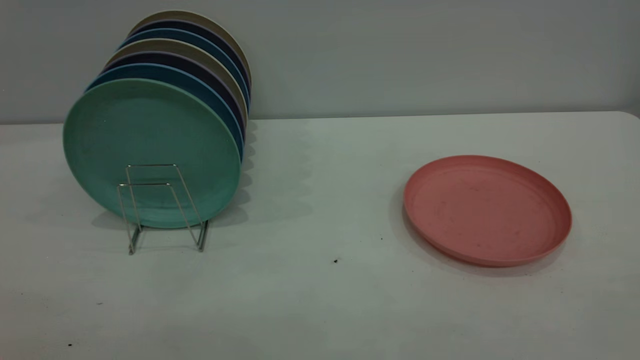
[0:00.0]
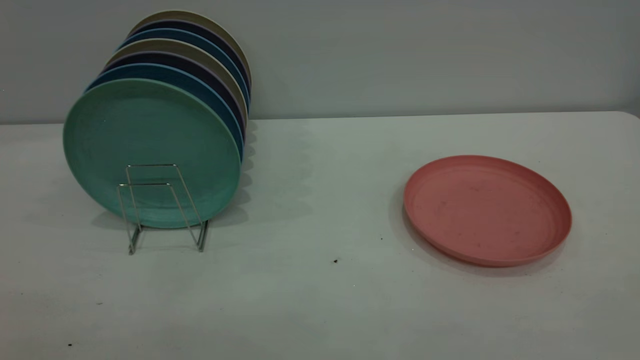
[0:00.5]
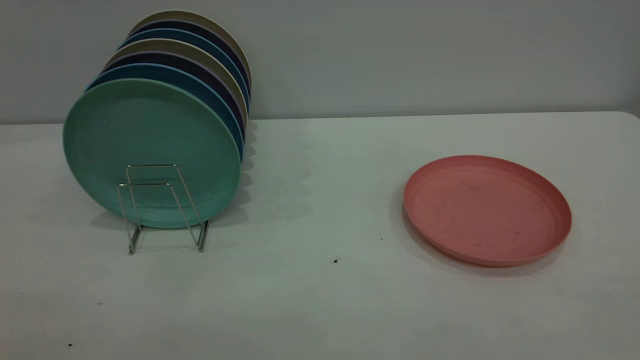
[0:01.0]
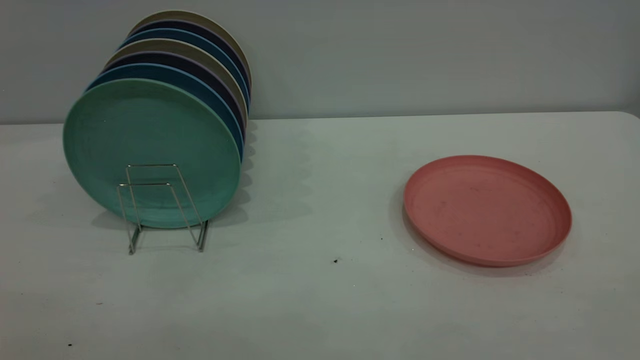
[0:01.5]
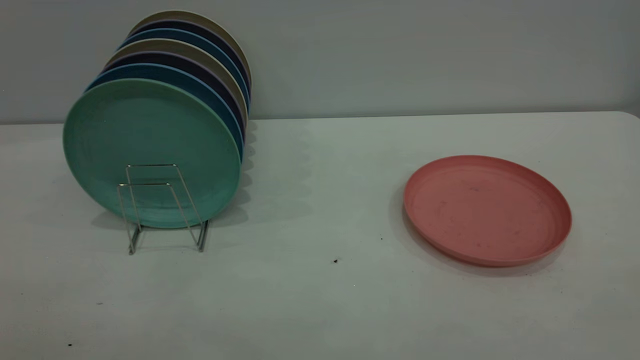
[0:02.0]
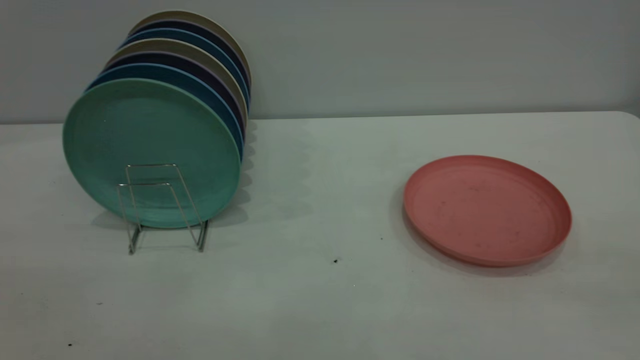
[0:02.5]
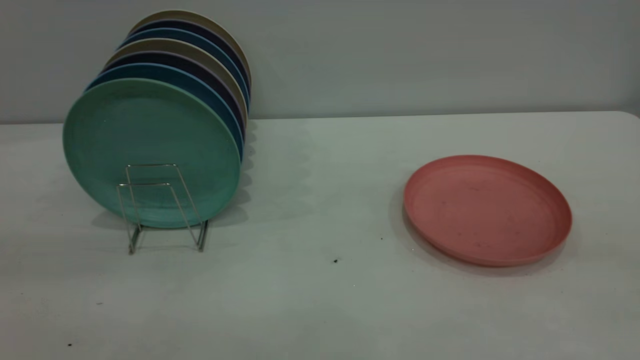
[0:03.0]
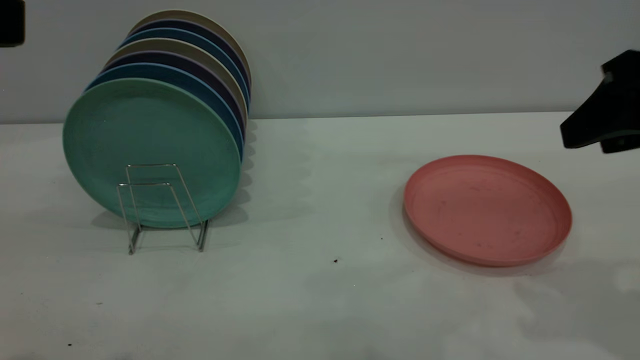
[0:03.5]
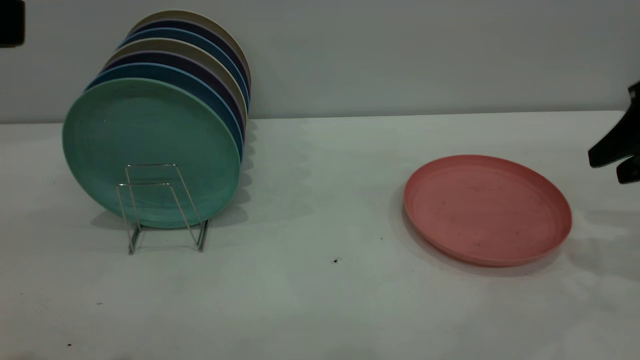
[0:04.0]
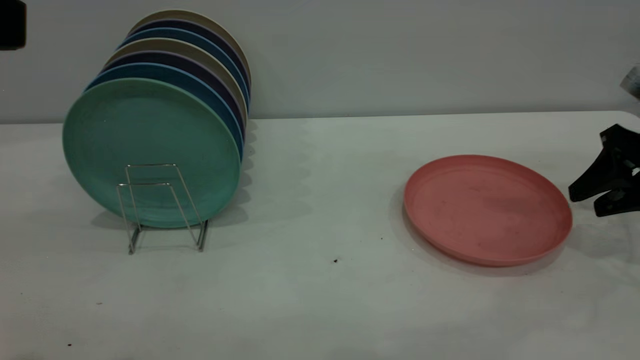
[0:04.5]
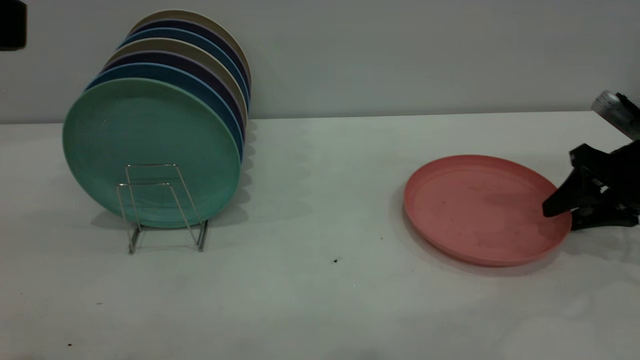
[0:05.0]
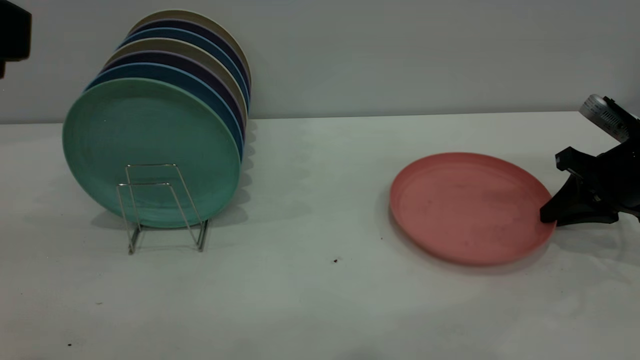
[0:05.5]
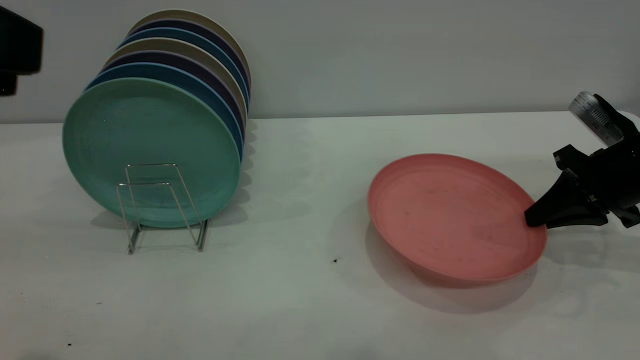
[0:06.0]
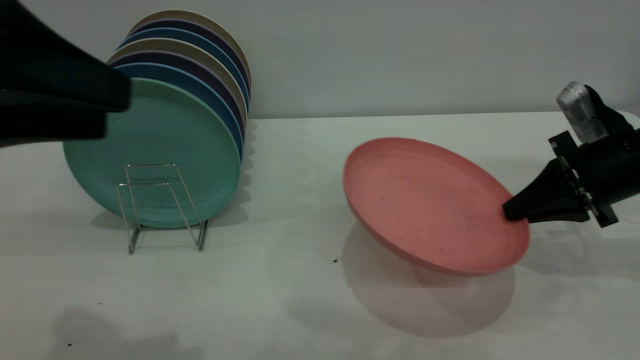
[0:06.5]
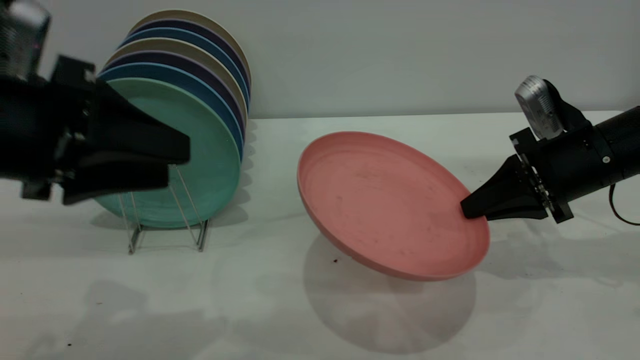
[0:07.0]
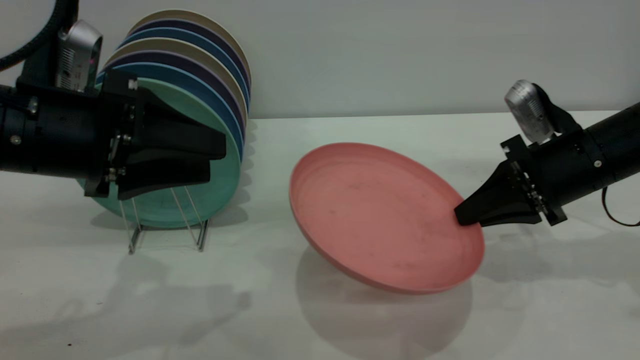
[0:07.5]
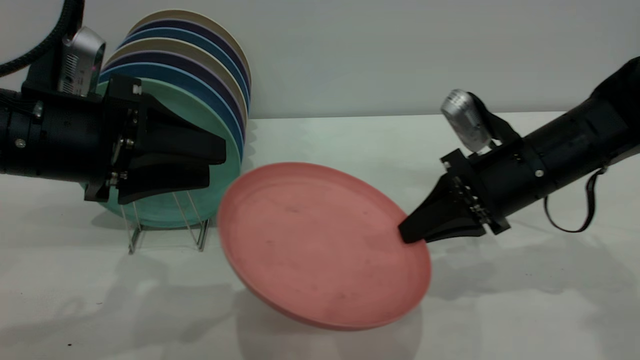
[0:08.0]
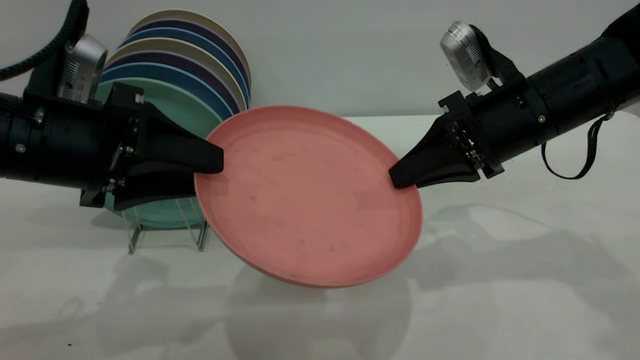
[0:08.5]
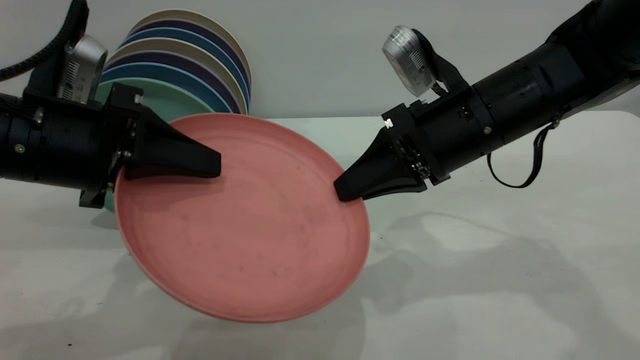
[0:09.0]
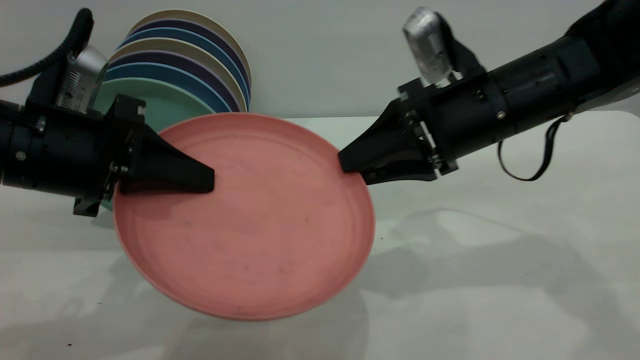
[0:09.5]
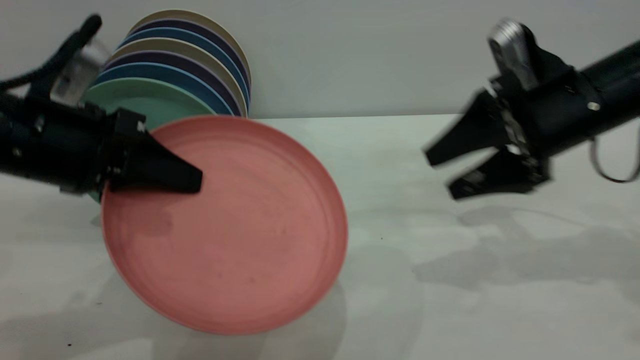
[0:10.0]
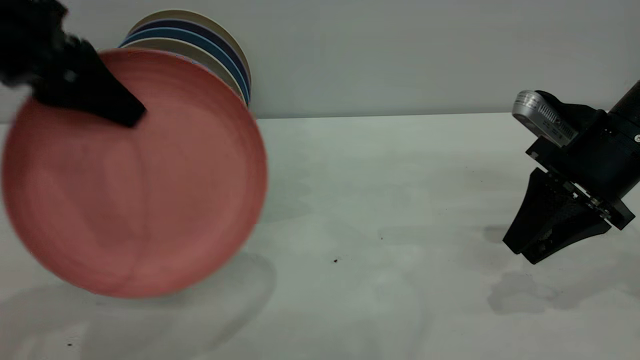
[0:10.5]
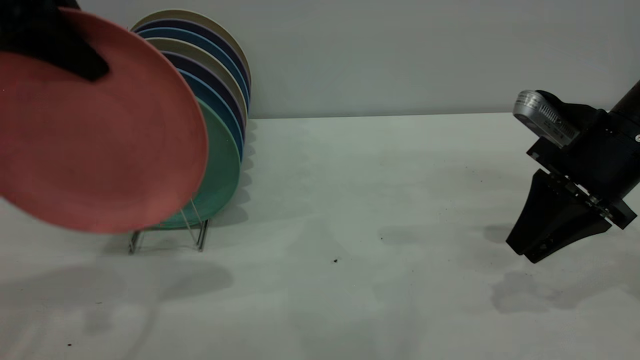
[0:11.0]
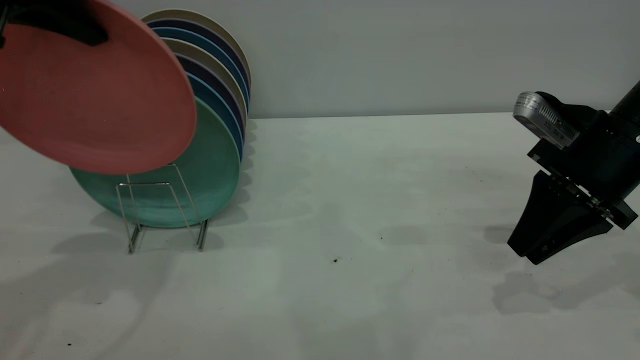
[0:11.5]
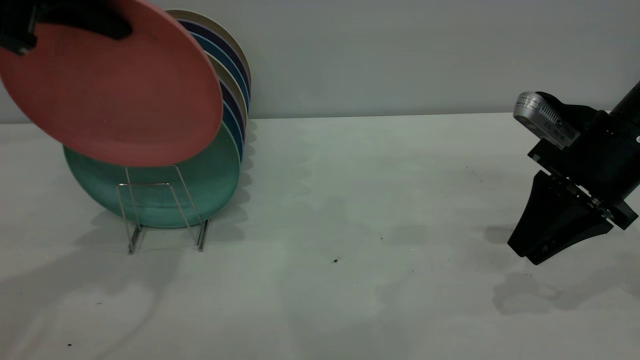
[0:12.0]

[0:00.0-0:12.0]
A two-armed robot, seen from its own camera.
Task of the whole recording: the right gripper grasp the pink plate, the right gripper pass the pink plate to the left gripper, and the left gripper place the pink plate on the plate rack.
Step, 0:00.0 to 0:06.0: Pick up the plate with the right gripper.
Step, 0:06.5 to 0:09.5: Pass the plate from the right gripper to the left gripper.
0:02.0 to 0:04.0: The right gripper goes roughly 40 cm forward and downward, and opens.
0:04.0 to 0:06.0: The right gripper heads downward, covering approximately 10 cm, and closes up.
0:06.0 to 0:08.0: The right gripper moves to the left, roughly 15 cm. Meanwhile the left gripper goes about 20 cm downward and forward.
0:08.0 to 0:10.0: The right gripper travels upward by about 5 cm, and opens up; the left gripper closes up.
0:10.0 to 0:12.0: The left gripper shifts some 15 cm upward and forward, while the right gripper closes.

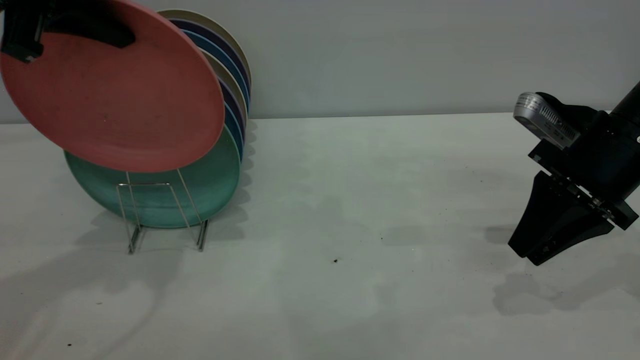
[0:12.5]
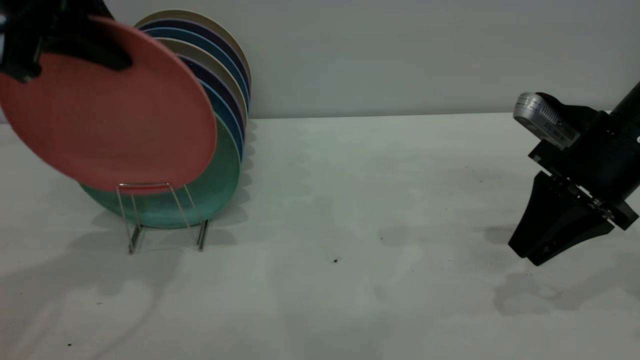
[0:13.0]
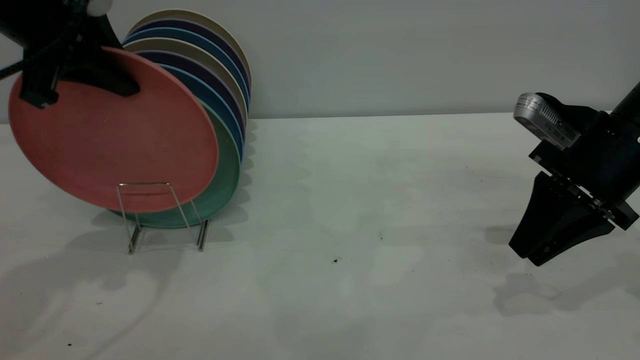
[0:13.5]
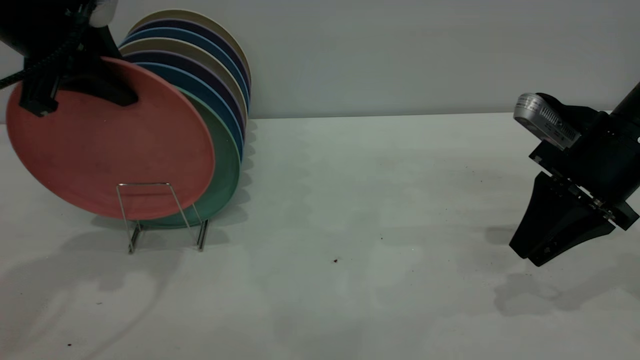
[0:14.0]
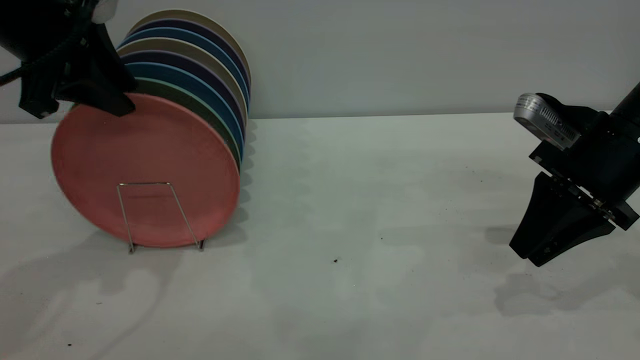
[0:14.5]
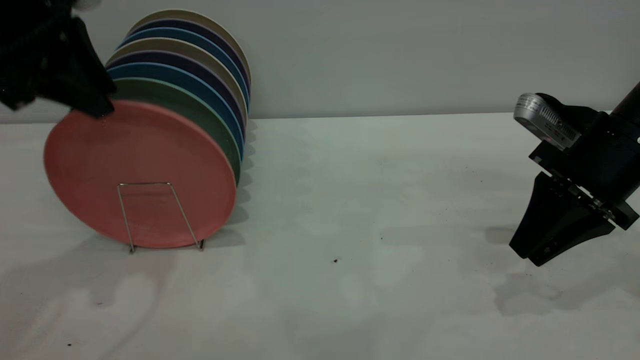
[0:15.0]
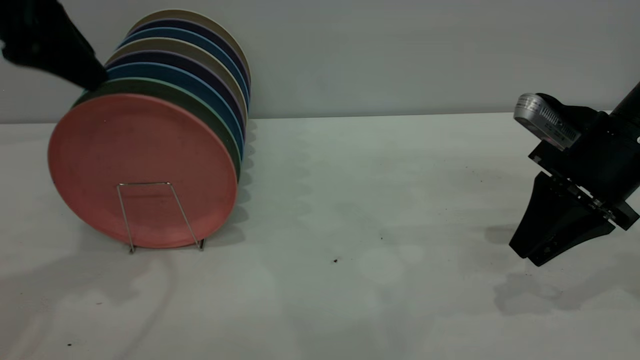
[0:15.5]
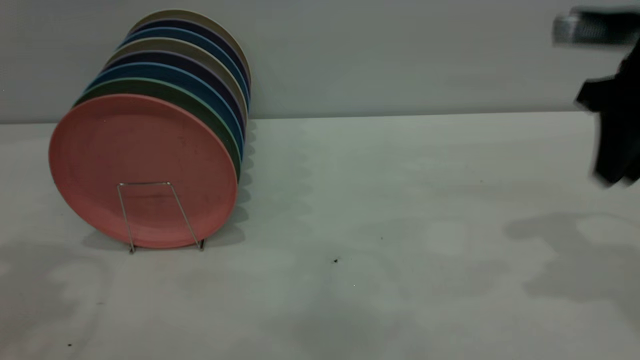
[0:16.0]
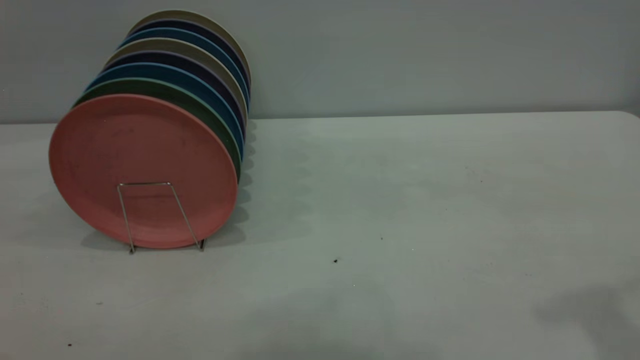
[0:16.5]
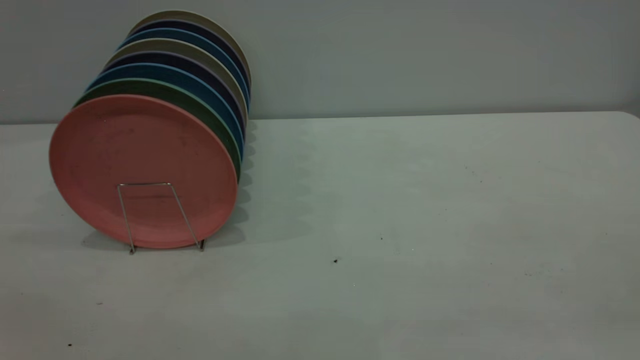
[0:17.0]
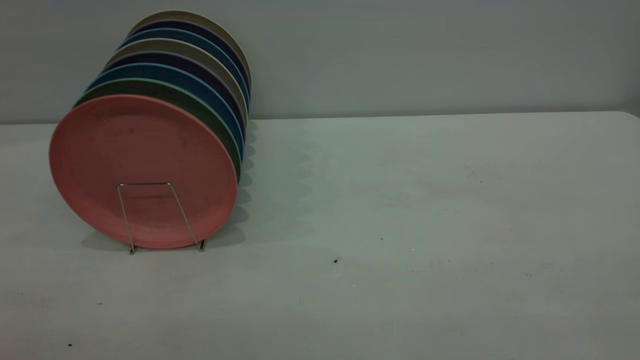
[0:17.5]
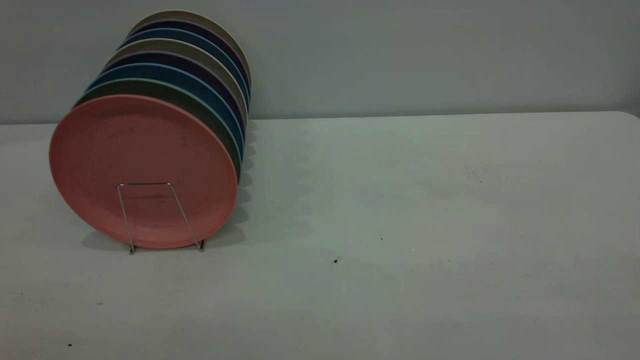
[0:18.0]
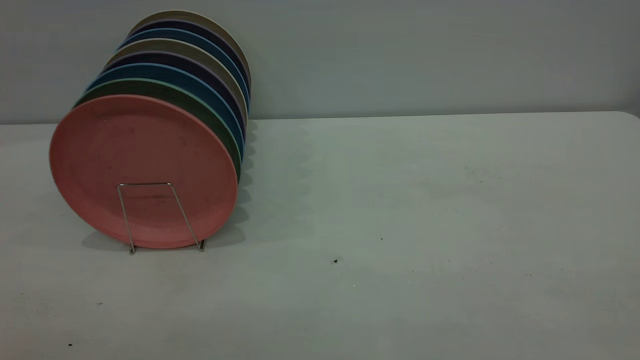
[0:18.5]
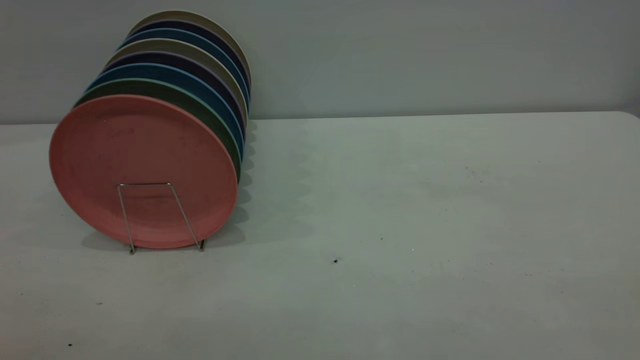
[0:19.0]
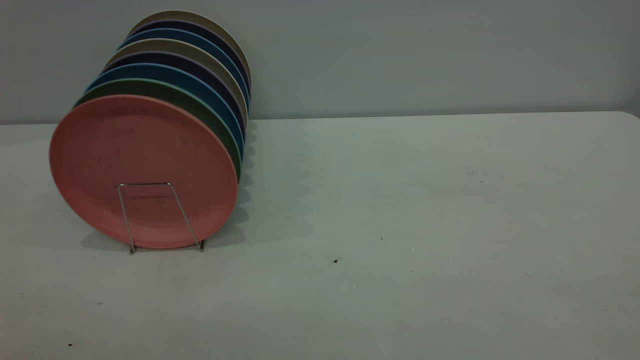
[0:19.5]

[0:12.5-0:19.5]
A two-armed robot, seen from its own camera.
Task of the whole recording: the right gripper grasp the pink plate, the right gripper pass the pink plate to the left gripper, and the left gripper place the pink plate on the plate rack.
Step, 0:12.5 to 0:15.5: Place the plate on the shelf.
0:12.5 to 0:14.5: The left gripper moves downward, approximately 5 cm, and opens its fingers.
0:14.5 to 0:16.0: The left gripper goes some 15 cm upward and backward, and opens up. Meanwhile the right gripper heads upward, covering approximately 10 cm.
0:16.0 to 0:17.5: The right gripper moves backward, roughly 35 cm.
